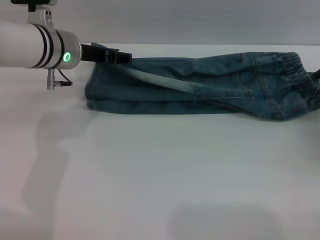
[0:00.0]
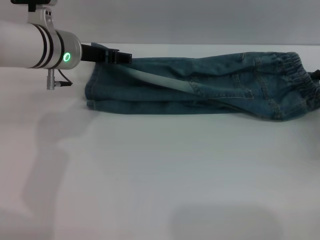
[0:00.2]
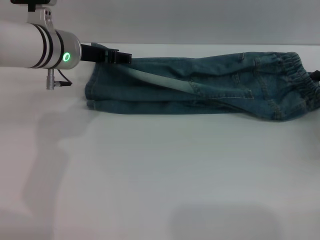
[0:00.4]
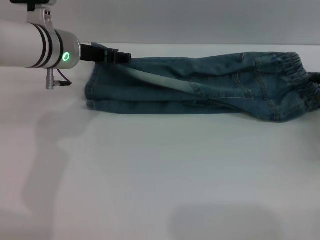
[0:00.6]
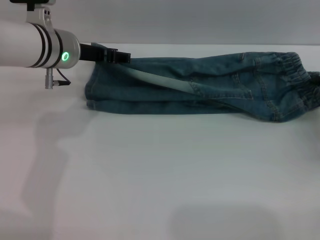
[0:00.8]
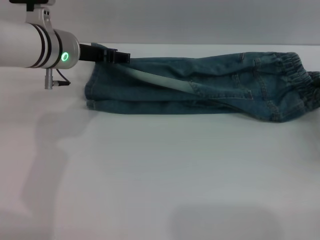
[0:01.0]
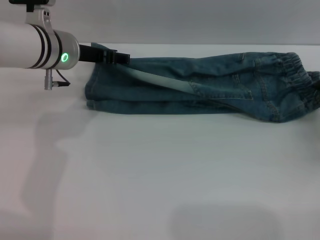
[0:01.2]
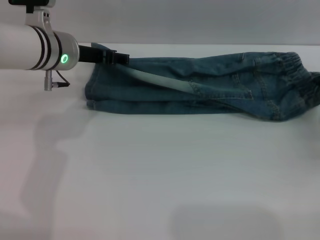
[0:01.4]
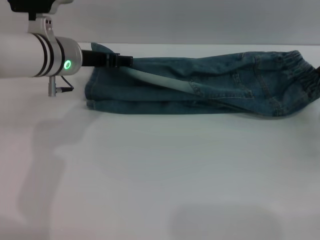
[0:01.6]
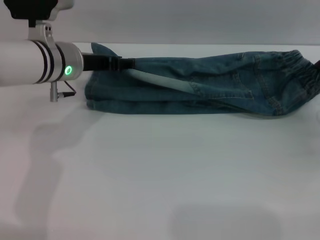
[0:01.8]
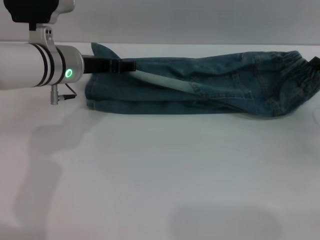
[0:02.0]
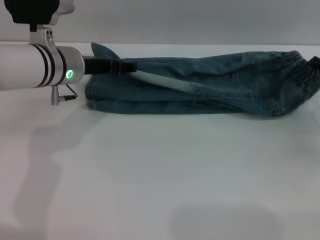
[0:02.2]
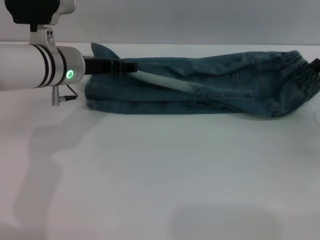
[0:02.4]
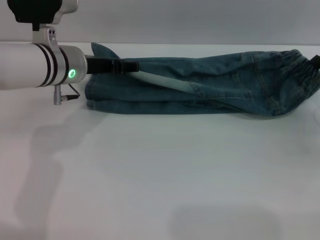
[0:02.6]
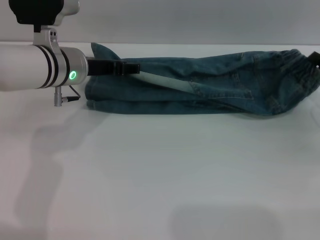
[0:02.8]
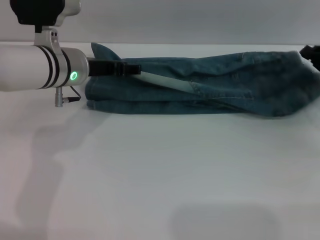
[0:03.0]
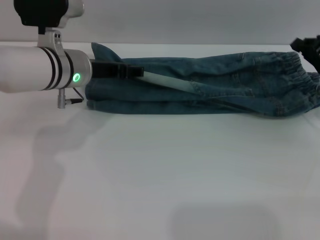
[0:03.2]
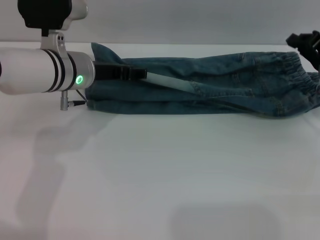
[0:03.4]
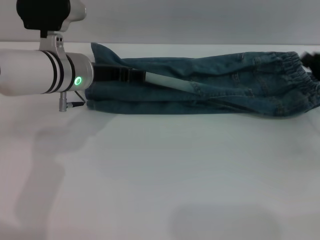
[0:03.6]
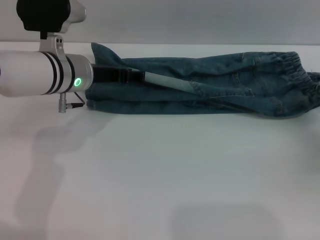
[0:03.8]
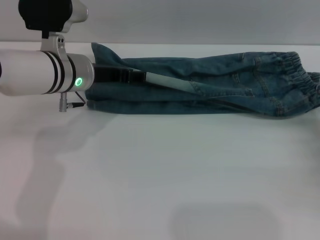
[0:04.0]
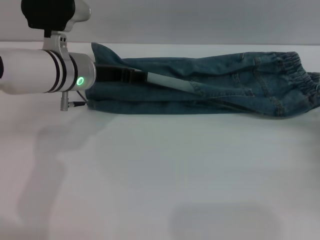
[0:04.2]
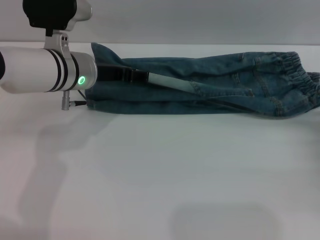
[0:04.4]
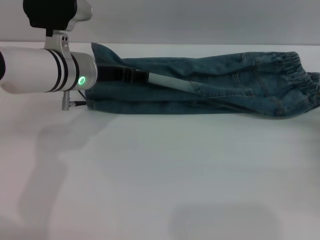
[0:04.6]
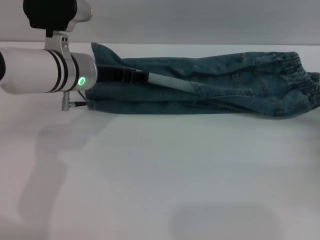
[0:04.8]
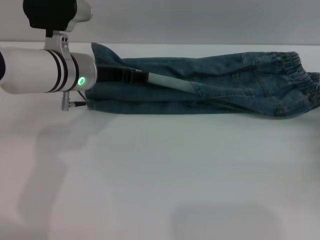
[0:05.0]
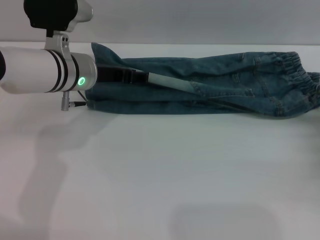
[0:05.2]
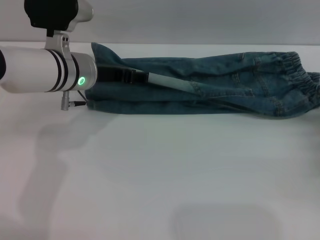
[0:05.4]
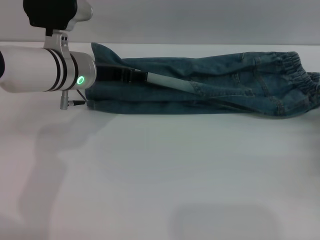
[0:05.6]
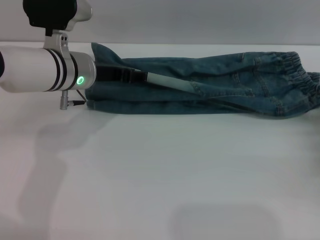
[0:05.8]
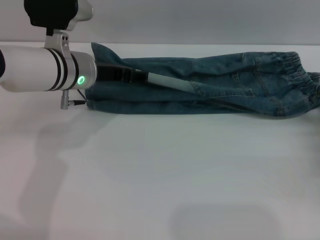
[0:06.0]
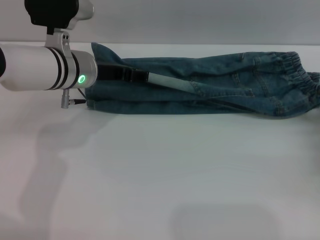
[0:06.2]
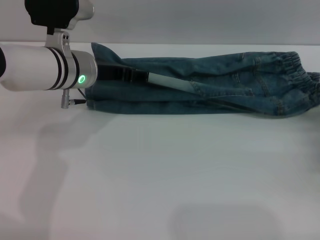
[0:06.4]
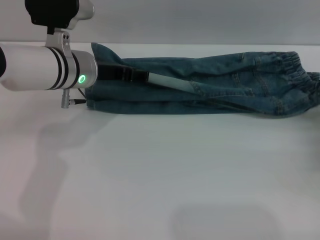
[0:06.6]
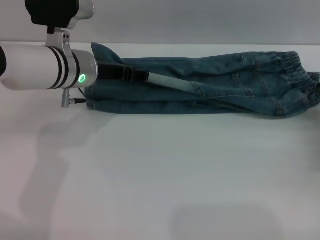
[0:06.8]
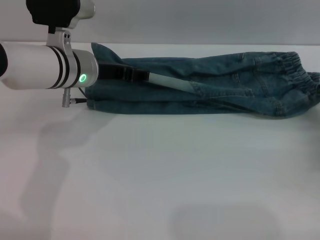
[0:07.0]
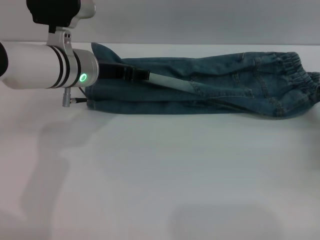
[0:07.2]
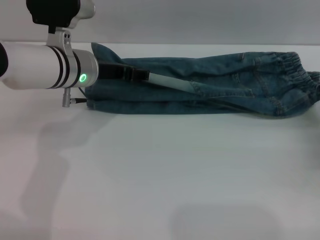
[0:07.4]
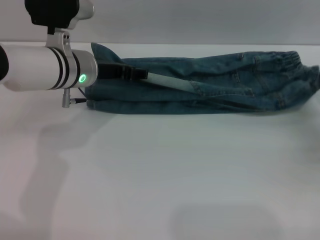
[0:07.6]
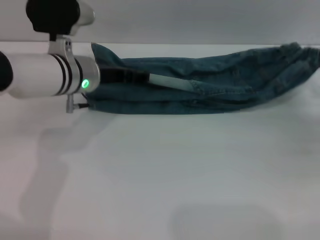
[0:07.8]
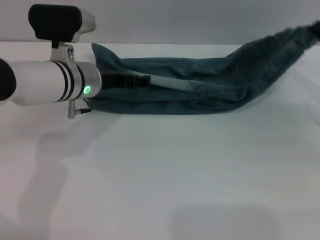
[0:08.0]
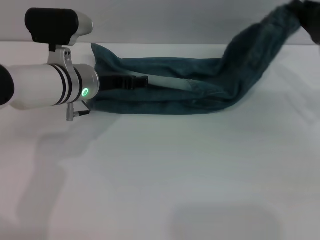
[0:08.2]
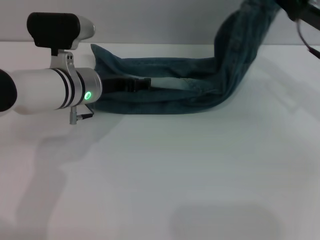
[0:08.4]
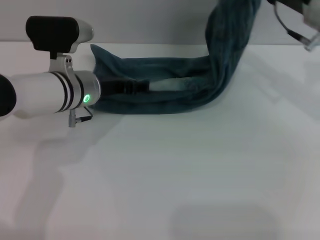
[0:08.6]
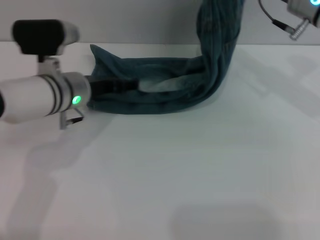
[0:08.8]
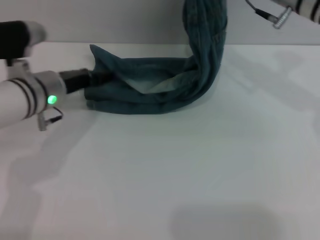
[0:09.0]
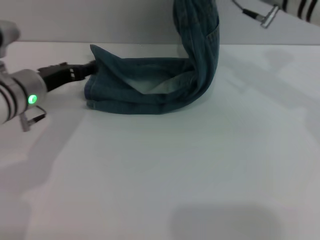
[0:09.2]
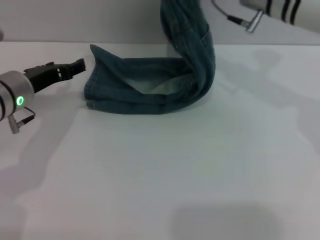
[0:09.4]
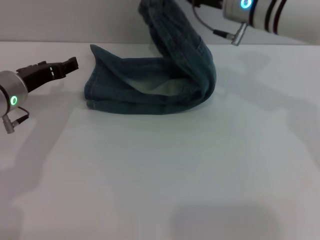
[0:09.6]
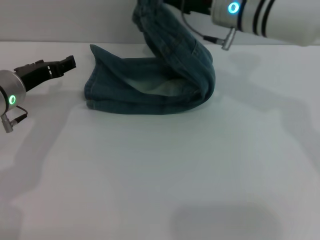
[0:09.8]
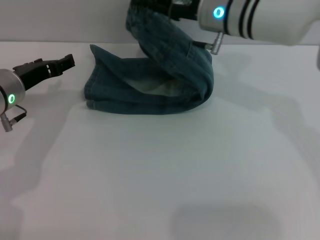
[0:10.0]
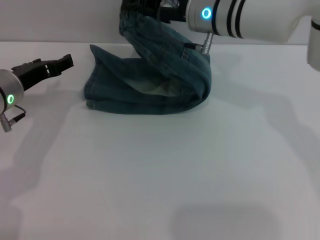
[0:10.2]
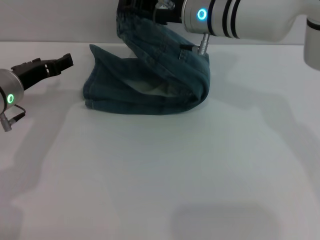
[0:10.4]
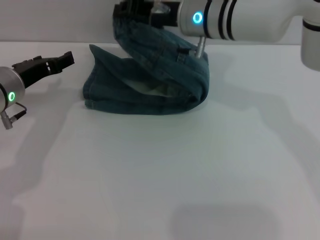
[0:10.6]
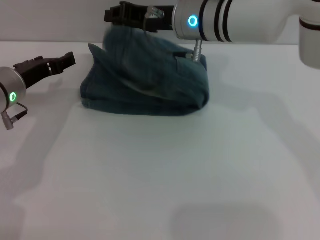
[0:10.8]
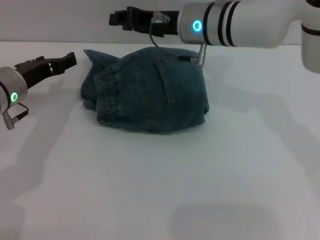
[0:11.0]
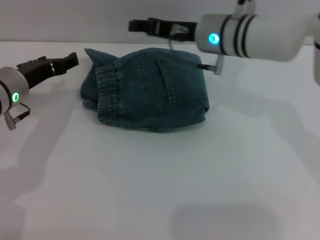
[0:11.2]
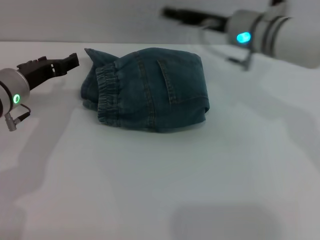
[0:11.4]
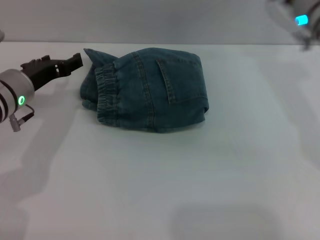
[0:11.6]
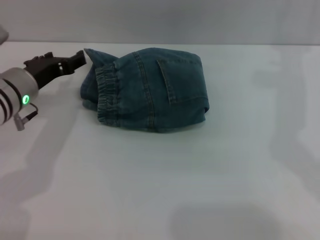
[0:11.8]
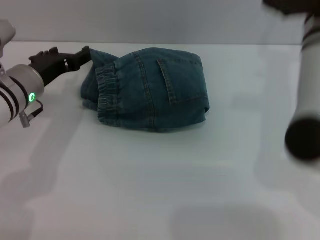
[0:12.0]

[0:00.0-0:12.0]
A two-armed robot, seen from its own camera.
Step, 0:00.0 to 0:11.0: Fold the pants from right to left with the right gripper.
0:00.0 to 0:01.6: The right gripper closes its fingers.
0:01.6 to 0:03.0: There are only small adjustments of the grippers.
0:03.0 to 0:04.4: The right gripper shifts approximately 10 cm backward and downward, and opens up.
0:06.0 to 0:07.6: The right gripper closes.
0:07.6 to 0:09.0: The left gripper ends up some 5 cm from where it was, while the right gripper moves to the left, upward and forward, roughly 25 cm.
0:09.0 to 0:10.4: The right gripper heads to the left, covering some 10 cm, while the left gripper shifts approximately 5 cm to the left.
0:10.4 to 0:12.0: The right gripper moves to the right and backward, approximately 10 cm, and opens its fingers.

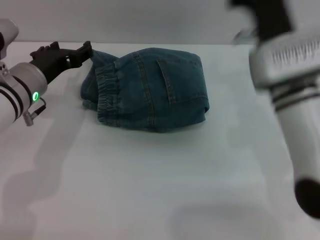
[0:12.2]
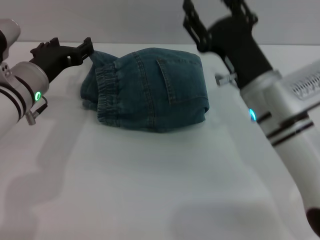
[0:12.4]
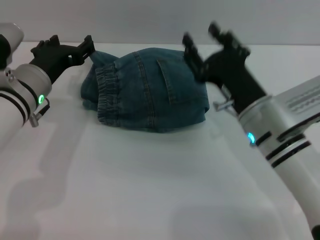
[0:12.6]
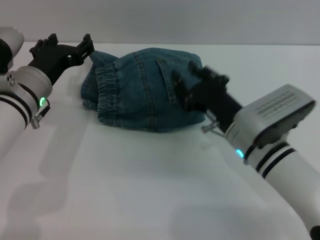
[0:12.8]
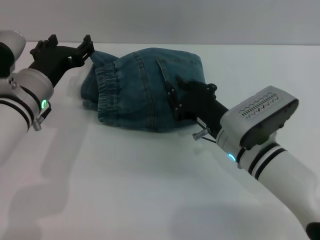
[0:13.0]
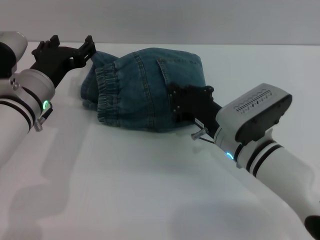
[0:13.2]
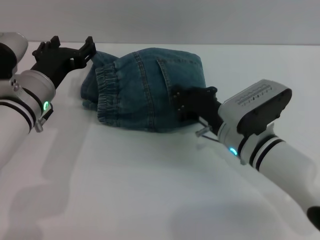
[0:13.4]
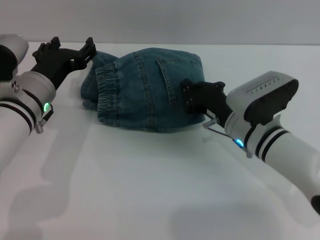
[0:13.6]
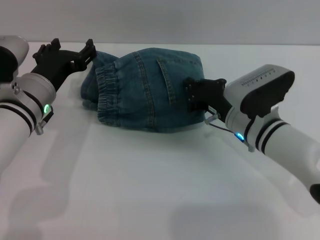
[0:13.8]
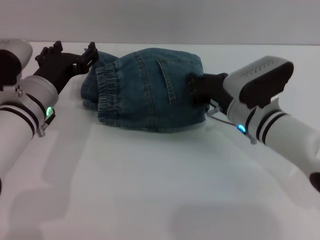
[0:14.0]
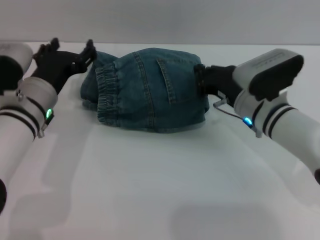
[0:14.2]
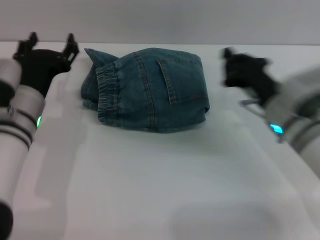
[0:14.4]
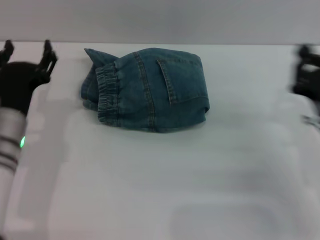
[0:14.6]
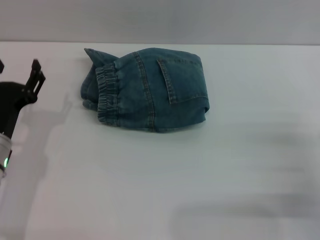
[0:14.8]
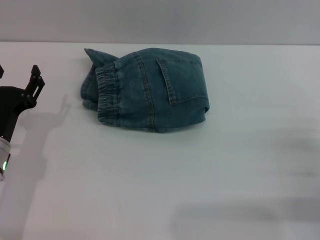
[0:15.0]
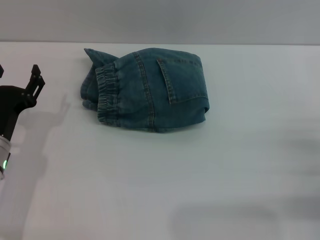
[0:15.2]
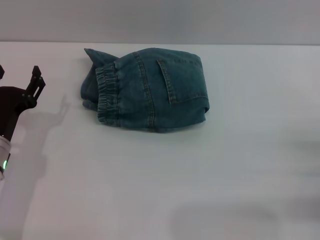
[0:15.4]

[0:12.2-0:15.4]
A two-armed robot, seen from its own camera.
0:12.2 to 0:13.8: The right gripper moves downward, roughly 10 cm, and closes its fingers.
0:13.8 to 0:15.4: The right gripper moves to the right and backward, some 25 cm; the left gripper shifts approximately 10 cm downward, to the left and backward.

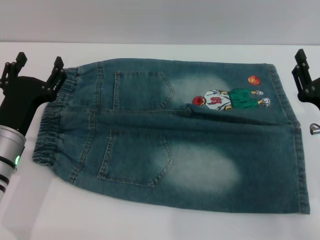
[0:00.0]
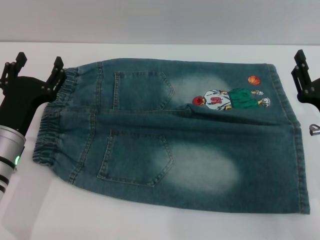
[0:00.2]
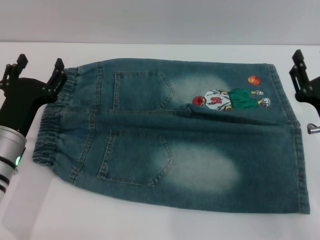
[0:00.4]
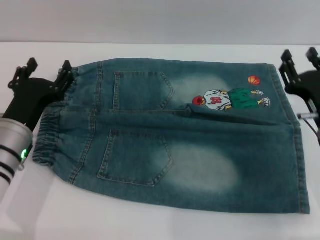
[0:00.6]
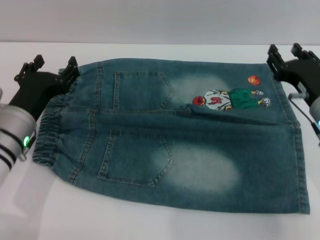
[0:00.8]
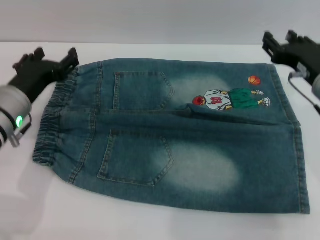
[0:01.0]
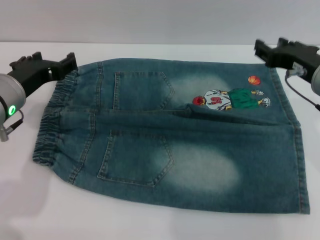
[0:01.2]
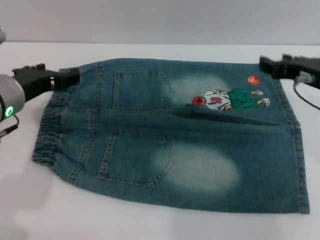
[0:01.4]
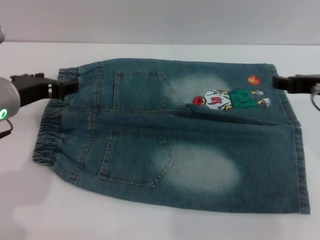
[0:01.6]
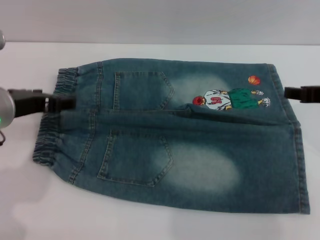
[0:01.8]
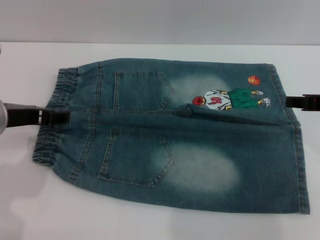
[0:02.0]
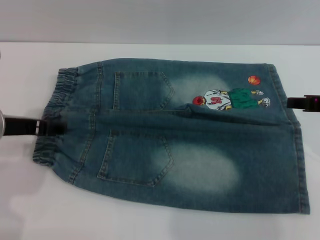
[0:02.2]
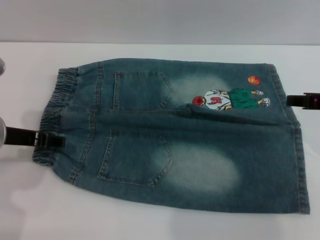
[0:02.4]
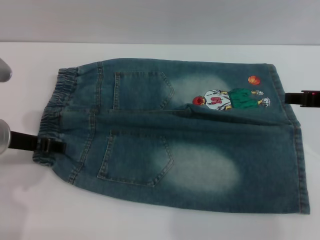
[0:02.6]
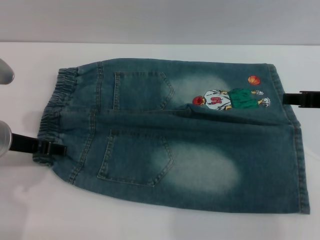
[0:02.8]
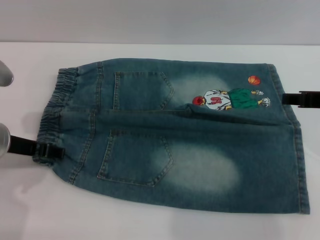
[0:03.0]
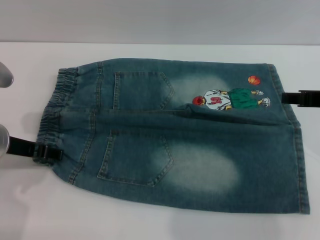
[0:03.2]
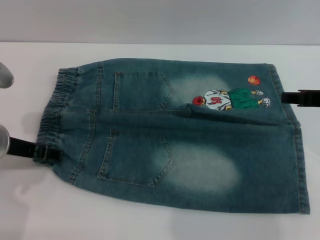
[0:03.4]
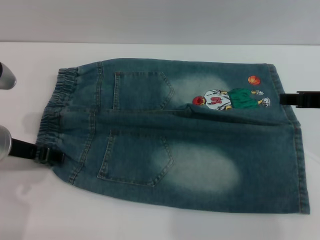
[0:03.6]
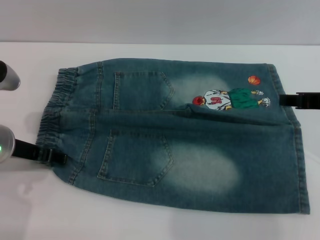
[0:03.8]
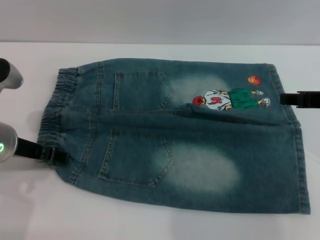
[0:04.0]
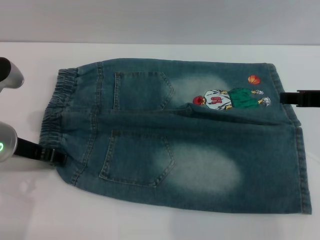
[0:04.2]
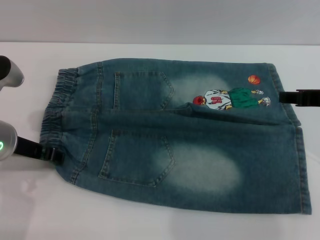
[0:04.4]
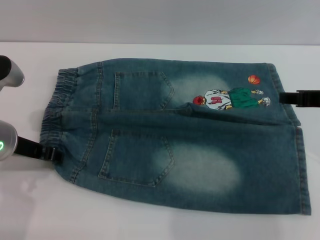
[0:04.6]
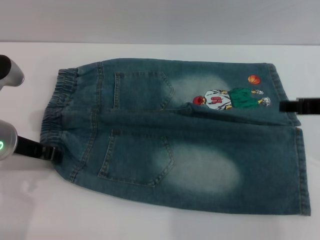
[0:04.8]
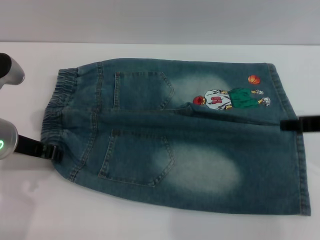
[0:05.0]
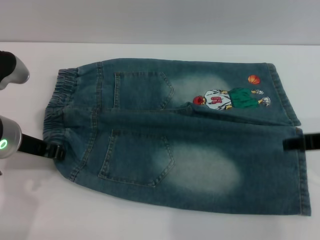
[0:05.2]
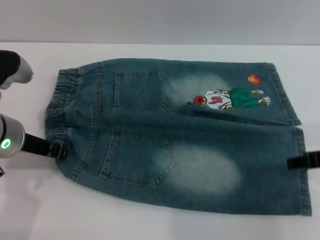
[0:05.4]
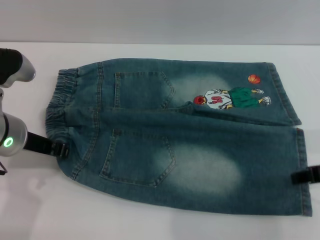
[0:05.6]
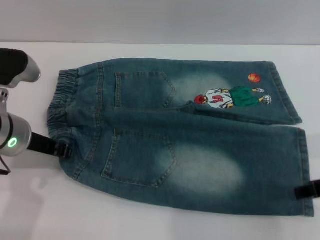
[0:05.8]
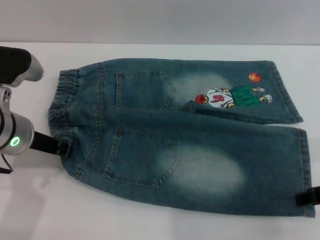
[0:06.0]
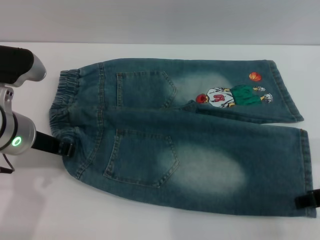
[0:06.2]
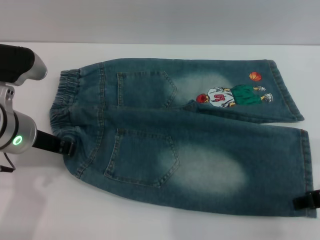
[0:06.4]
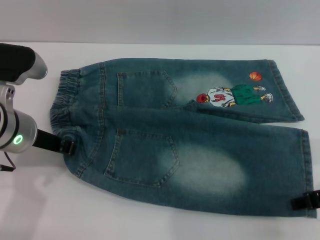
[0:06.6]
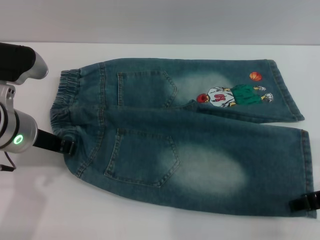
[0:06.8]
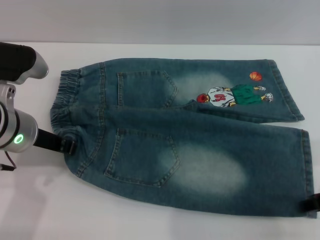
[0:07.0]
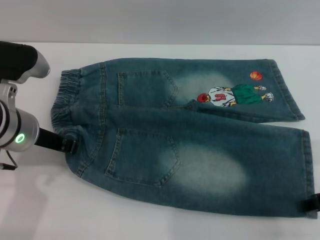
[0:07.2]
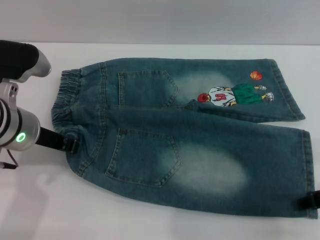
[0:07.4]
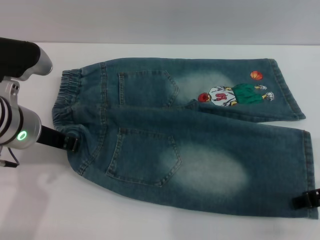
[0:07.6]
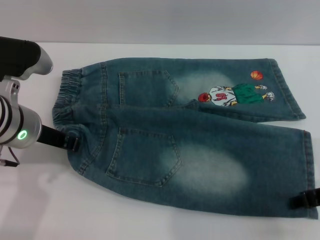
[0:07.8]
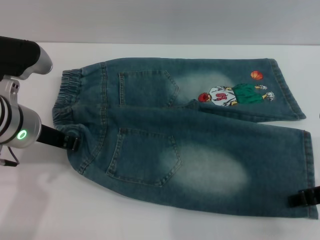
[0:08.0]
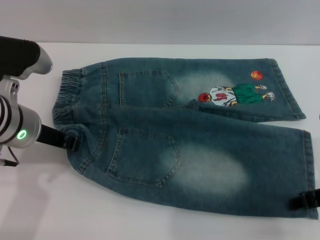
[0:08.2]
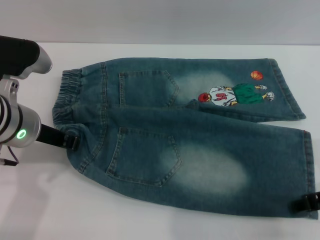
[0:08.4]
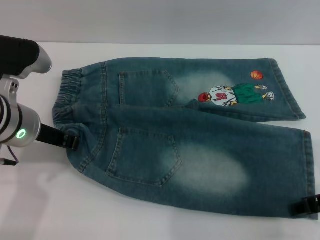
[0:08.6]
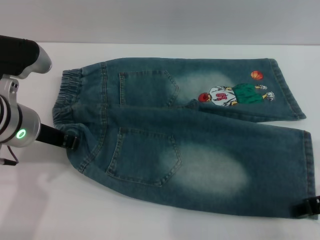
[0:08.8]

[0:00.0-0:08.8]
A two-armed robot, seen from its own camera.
0:00.0 to 0:01.4: The left gripper is displaced upward by about 10 cm; the right gripper goes roughly 15 cm upward and forward.
0:03.0 to 0:04.4: Both grippers stay about where they are.
0:04.4 to 0:05.8: The right gripper shifts about 5 cm backward, while the left gripper closes up.
0:05.8 to 0:07.4: The grippers stay close to where they were, moving slightly.
0:07.4 to 0:08.8: The two grippers keep their place.
